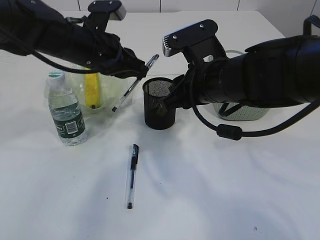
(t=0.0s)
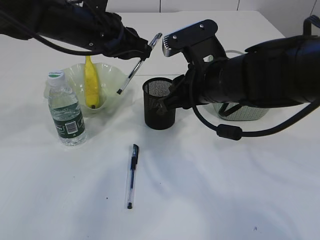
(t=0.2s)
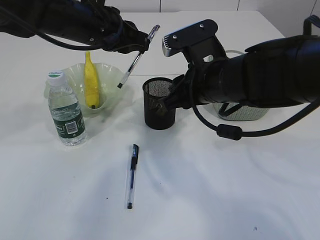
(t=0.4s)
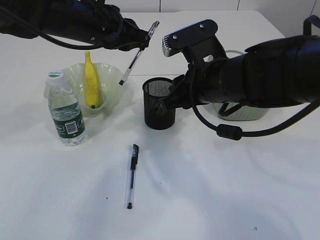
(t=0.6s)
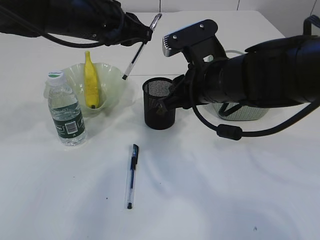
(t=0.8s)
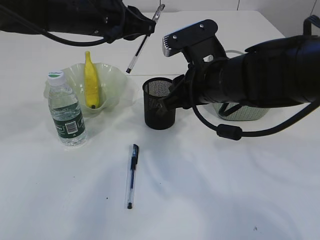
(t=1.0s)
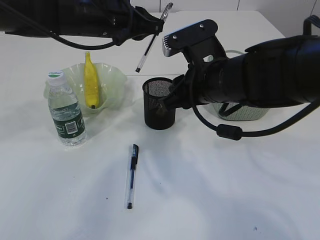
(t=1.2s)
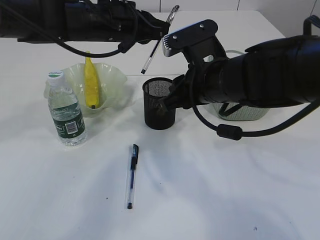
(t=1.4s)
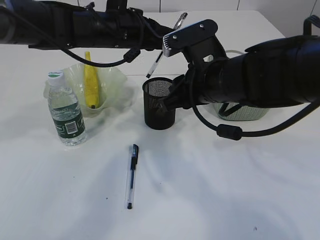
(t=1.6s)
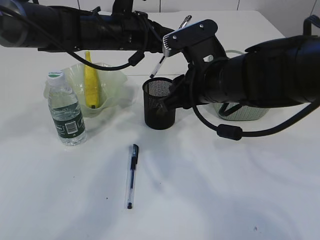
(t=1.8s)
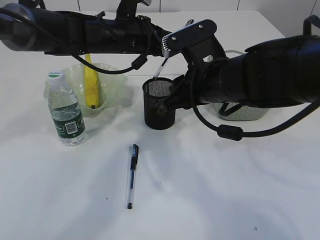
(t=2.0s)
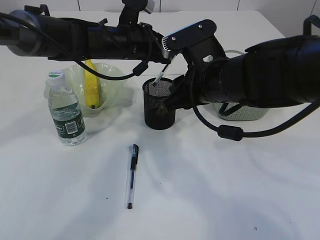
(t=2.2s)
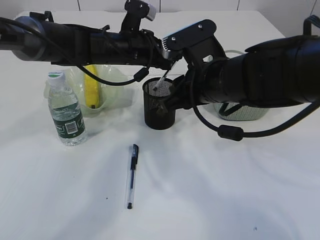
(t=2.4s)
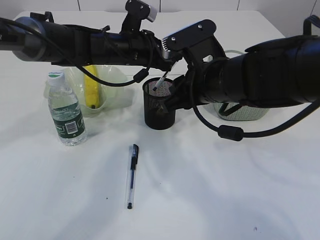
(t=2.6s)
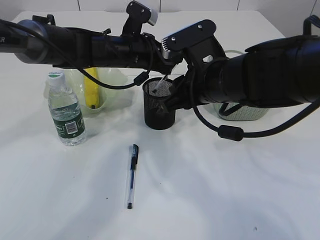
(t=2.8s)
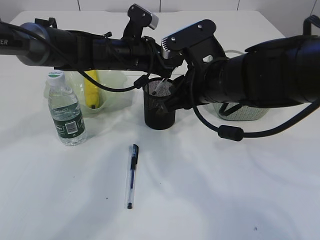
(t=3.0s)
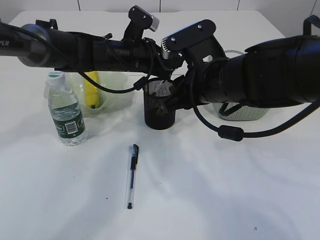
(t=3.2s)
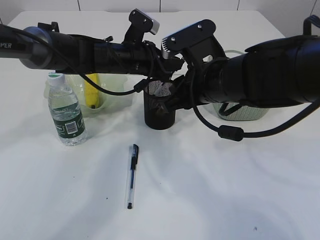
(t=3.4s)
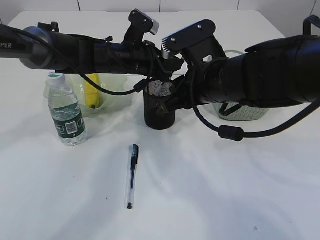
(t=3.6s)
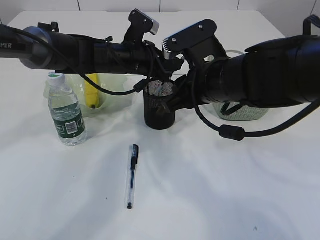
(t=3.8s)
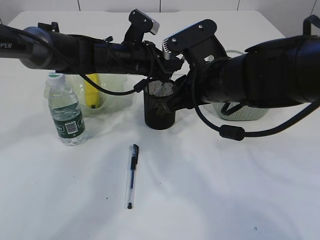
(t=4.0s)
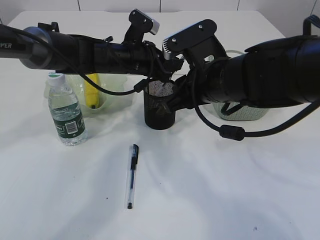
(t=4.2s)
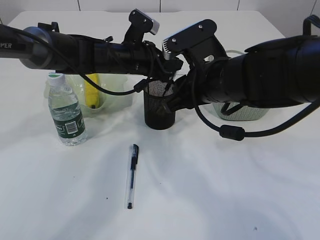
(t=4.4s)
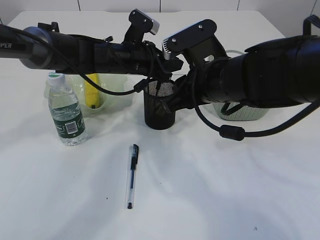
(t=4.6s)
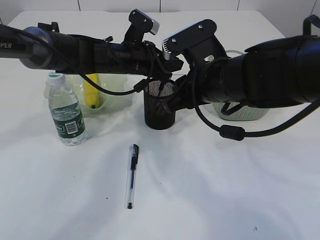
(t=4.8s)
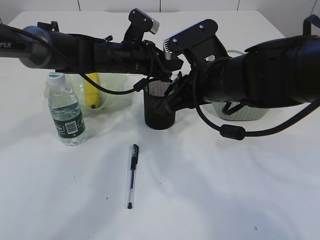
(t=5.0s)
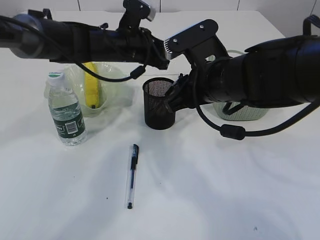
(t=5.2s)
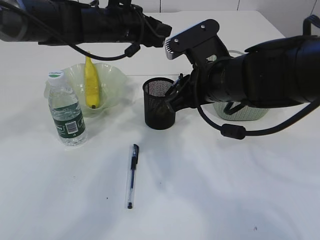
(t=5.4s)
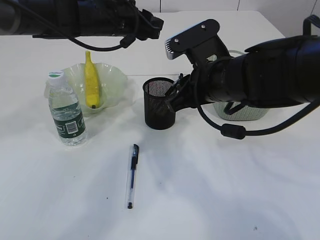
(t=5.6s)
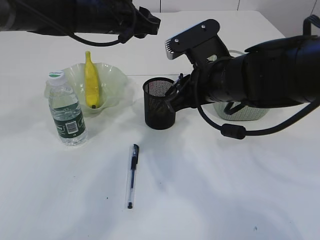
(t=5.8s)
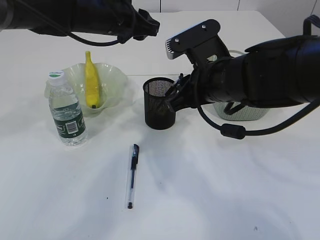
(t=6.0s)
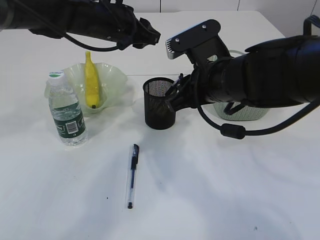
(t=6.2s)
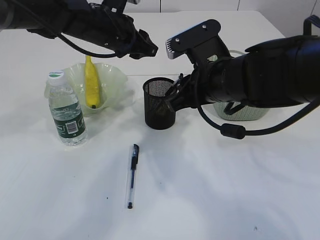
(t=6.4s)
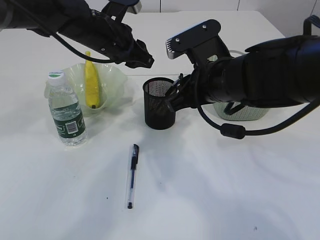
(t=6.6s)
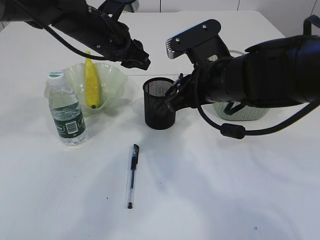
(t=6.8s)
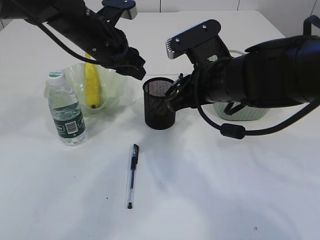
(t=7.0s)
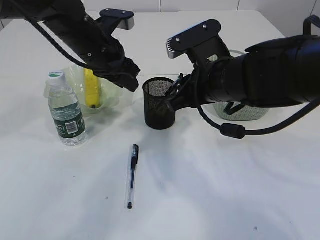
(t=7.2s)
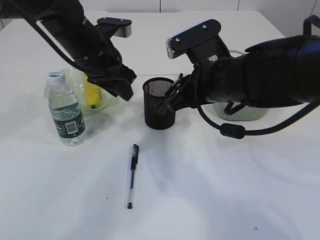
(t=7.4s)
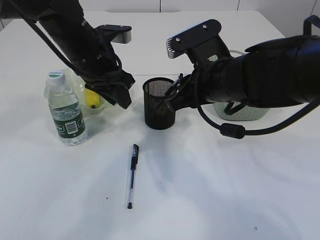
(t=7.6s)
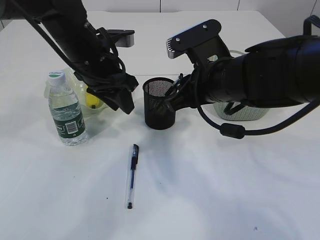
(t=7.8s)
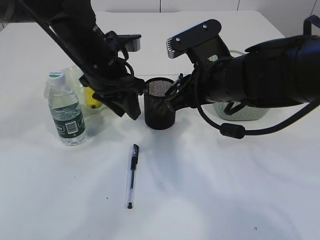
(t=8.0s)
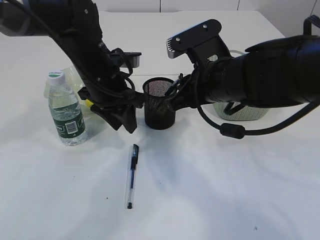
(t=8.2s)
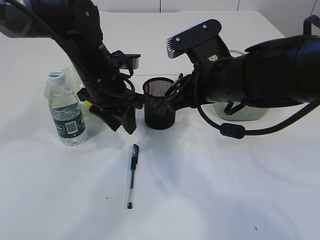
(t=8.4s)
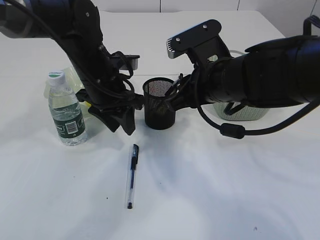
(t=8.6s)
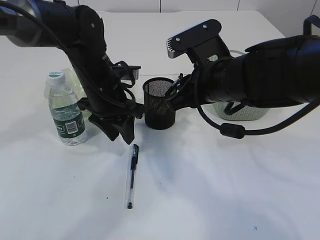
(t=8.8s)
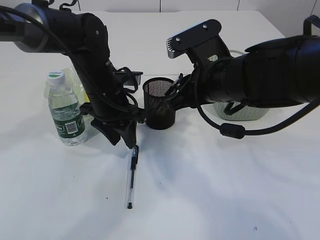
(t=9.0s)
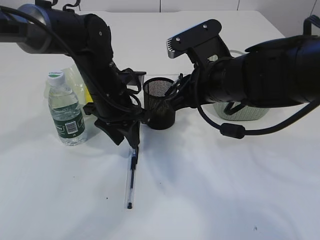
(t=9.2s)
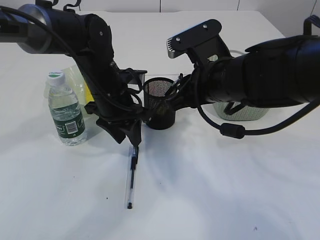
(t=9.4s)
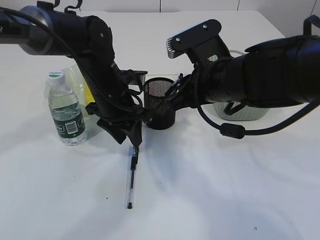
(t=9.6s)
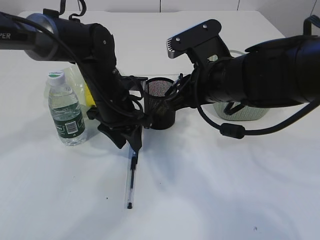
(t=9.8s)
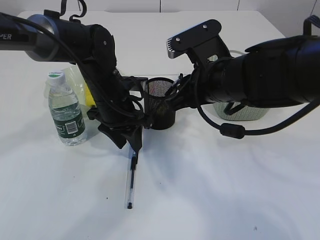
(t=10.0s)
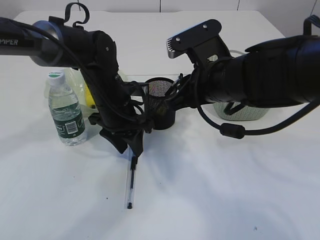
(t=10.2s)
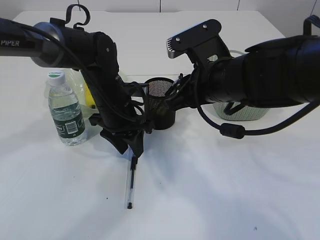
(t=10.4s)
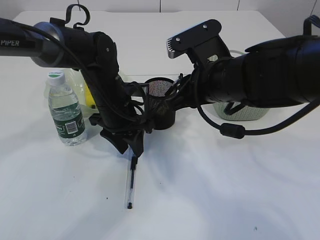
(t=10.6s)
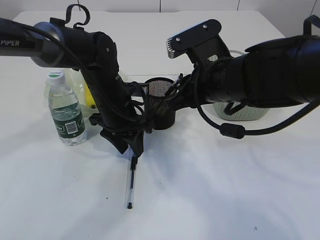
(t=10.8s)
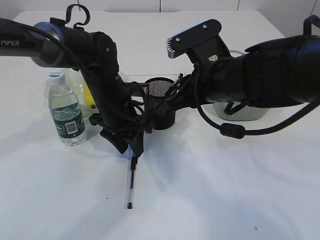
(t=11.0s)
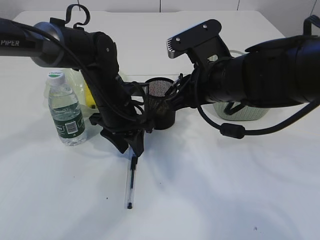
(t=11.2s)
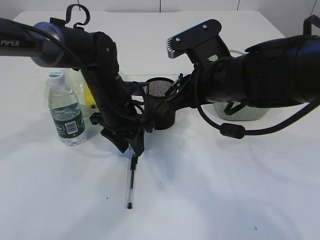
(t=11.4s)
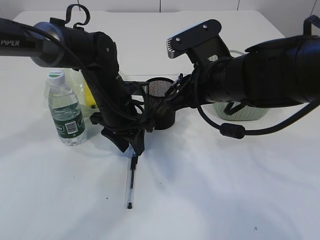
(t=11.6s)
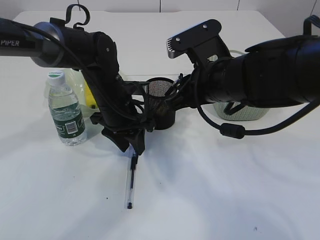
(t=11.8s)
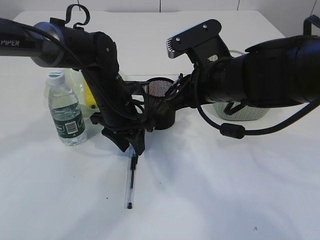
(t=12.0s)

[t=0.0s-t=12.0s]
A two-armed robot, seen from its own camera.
Step, t=0.0s to t=5.0s: Place the pen into the pen holder.
t=0.0s to t=1.6s: The left gripper changes place by approximately 5 cm.
t=1.6s to t=3.0s: The left gripper shifts approximately 5 cm downward.
t=3.0s to t=4.4s: Neither gripper changes place.
t=4.4s to t=6.0s: The left gripper goes some 10 cm upward.
t=6.0s to t=7.6s: The left gripper moves backward, about 5 cm.
t=7.6s to t=9.0s: The left gripper goes approximately 5 cm downward.
t=9.0s to t=10.4s: There are only small adjustments of the grippers.
t=10.4s to t=12.0s: Both grippers stay about where they are.

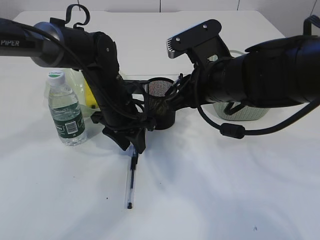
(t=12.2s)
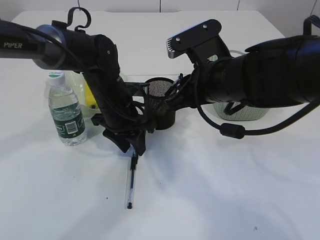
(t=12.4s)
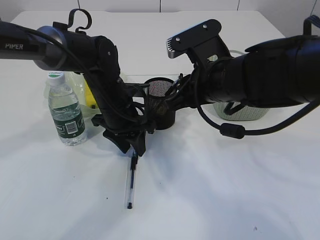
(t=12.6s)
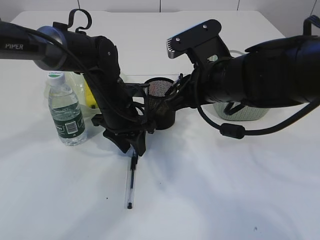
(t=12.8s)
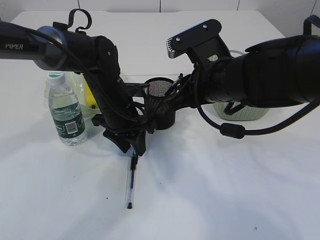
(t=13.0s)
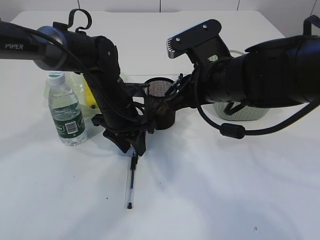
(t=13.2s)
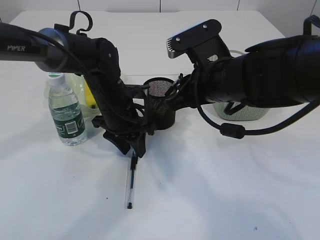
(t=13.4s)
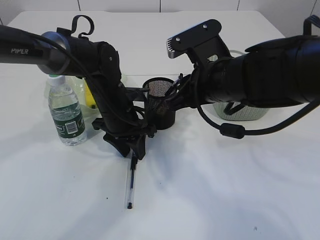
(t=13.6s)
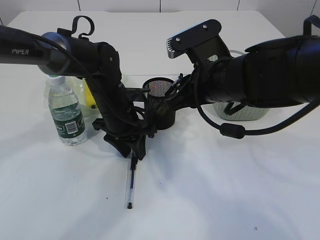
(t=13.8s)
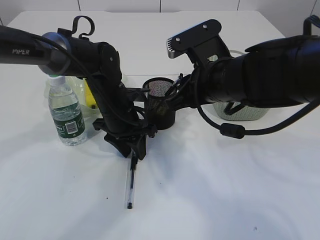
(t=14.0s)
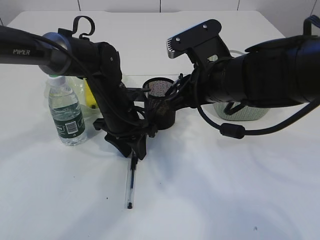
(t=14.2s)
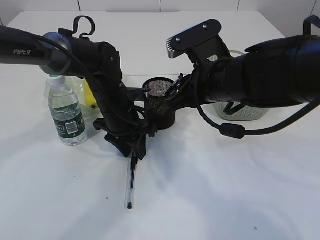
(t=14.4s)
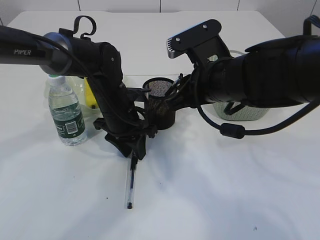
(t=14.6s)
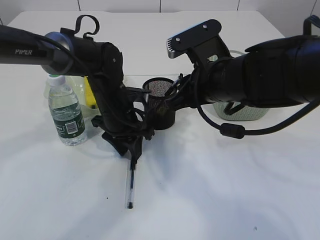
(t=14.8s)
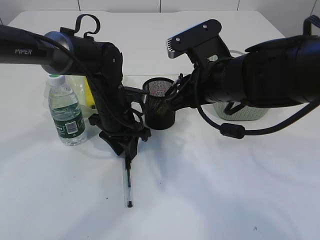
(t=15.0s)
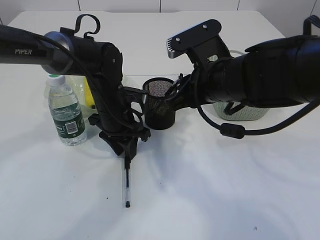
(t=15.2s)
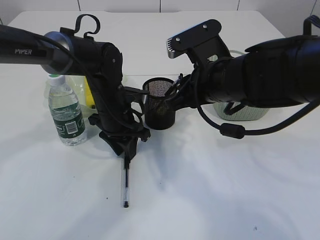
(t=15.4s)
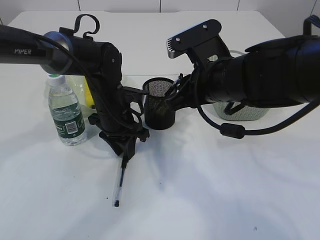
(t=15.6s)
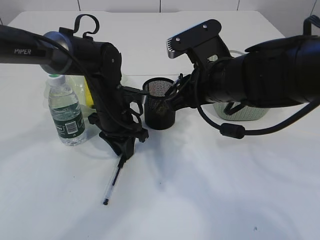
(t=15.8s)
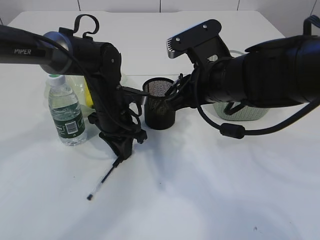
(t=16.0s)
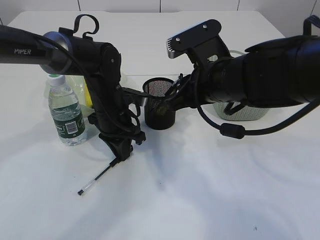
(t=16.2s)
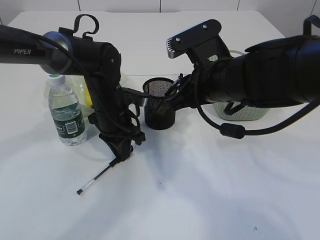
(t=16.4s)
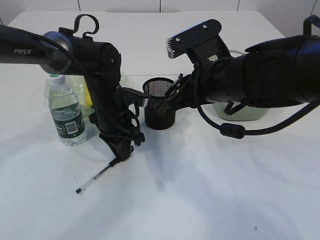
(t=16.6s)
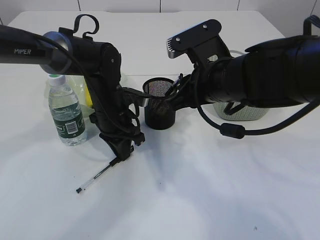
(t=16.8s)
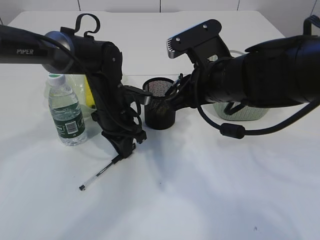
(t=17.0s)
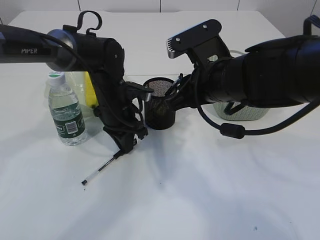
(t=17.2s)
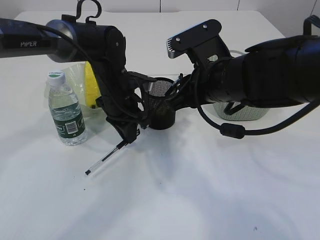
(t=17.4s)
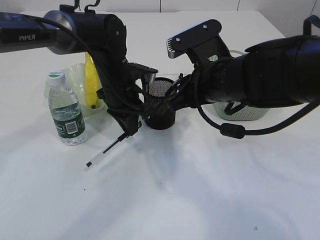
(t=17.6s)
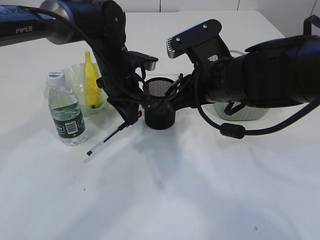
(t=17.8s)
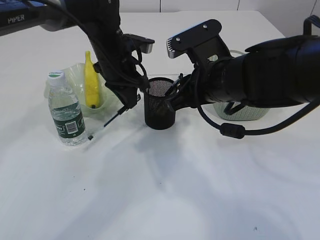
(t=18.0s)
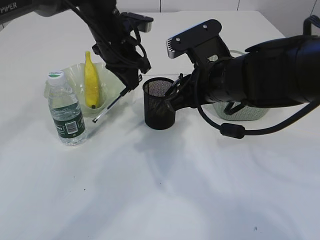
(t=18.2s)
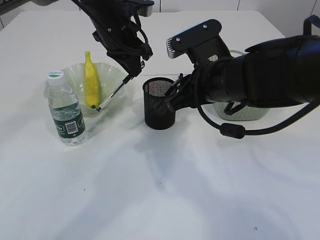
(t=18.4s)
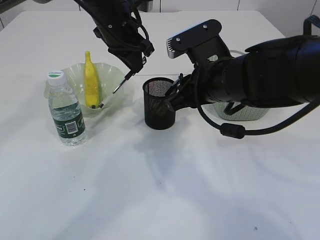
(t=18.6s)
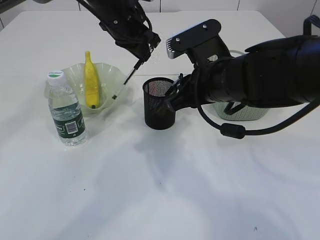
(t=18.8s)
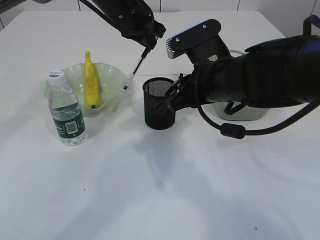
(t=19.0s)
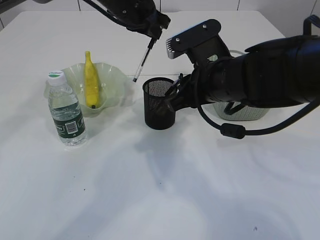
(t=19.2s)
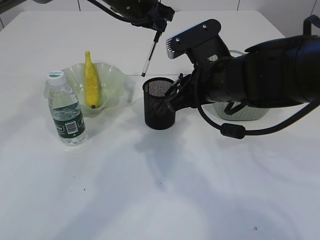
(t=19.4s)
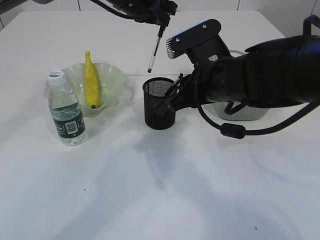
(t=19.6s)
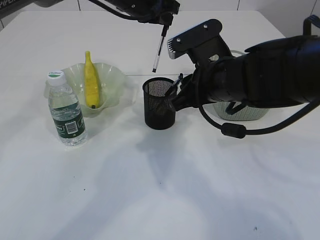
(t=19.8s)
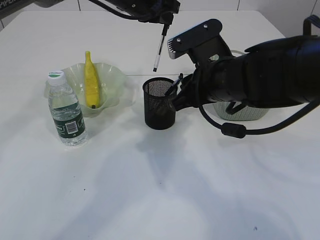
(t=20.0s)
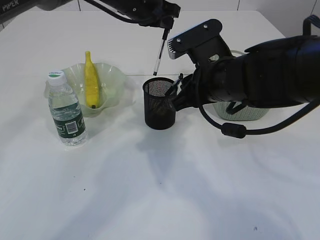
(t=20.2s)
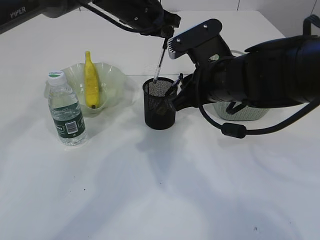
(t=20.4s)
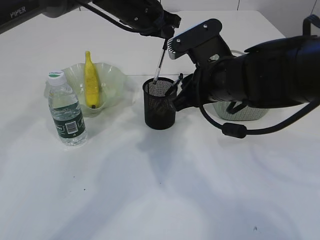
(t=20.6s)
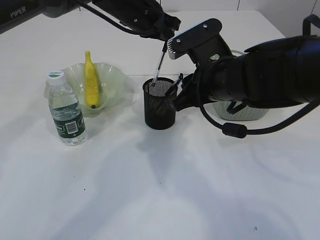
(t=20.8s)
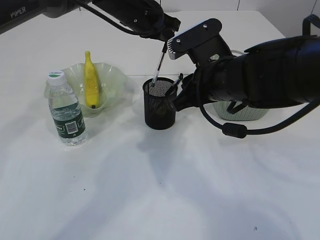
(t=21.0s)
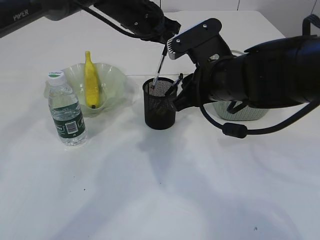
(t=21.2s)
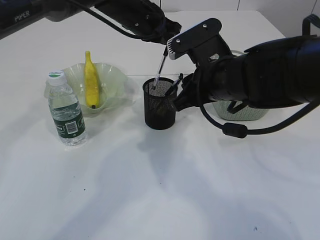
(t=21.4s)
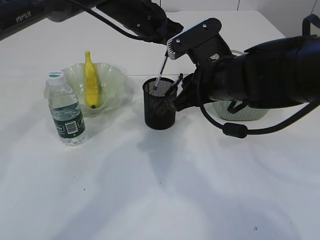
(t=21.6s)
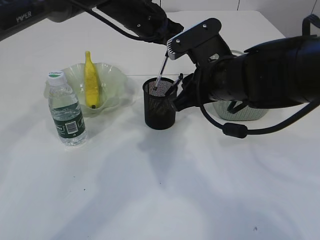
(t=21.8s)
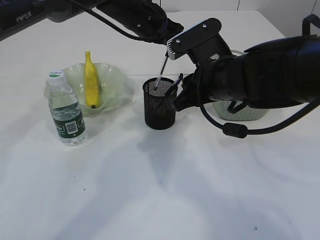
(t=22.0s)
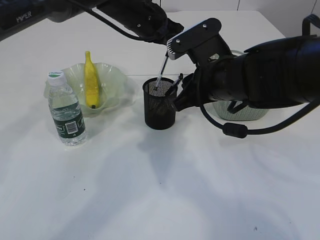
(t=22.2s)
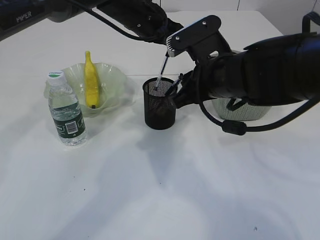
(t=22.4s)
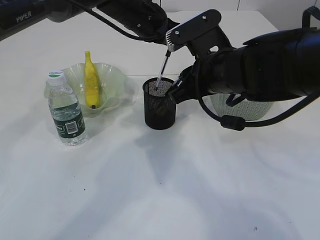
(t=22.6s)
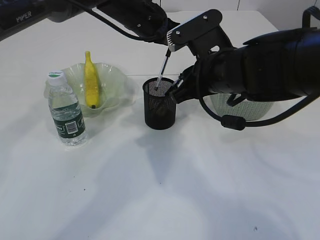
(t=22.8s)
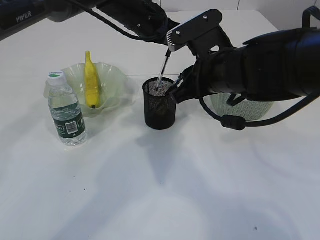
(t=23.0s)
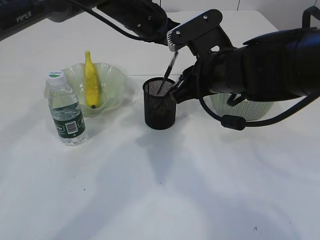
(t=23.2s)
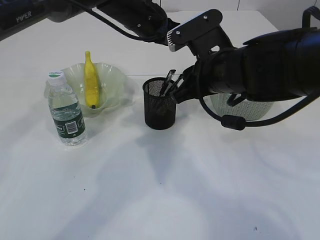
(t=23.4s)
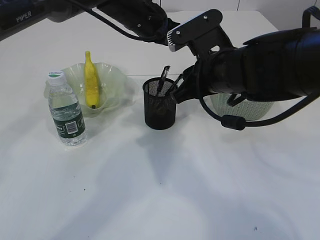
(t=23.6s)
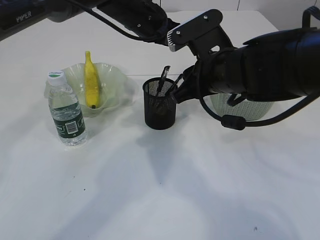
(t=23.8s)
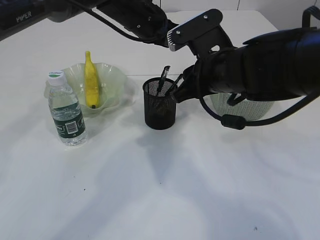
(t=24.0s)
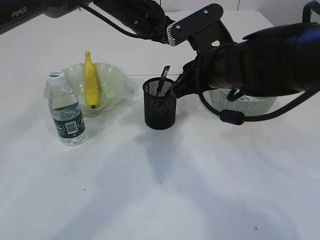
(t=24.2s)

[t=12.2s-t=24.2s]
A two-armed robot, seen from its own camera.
Step, t=12.2s to t=17.8s: Pick up the pen with left arm.
Step, t=18.0s to t=23.2s: Place the pen into the pen holder.
t=12.2s to t=16.6s: The grippers move only a little.
t=16.6s to t=18.2s: The left gripper moves upward and forward, some 15 cm.
t=18.2s to t=19.8s: The left gripper heads upward, covering about 5 cm.
t=19.8s to t=21.2s: The grippers stay close to where they were, moving slightly.
t=21.2s to t=22.6s: Both grippers stay put.
t=22.6s to t=24.2s: Both grippers stay about where they are.
